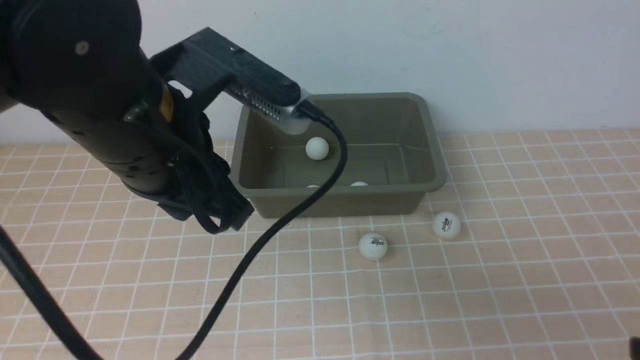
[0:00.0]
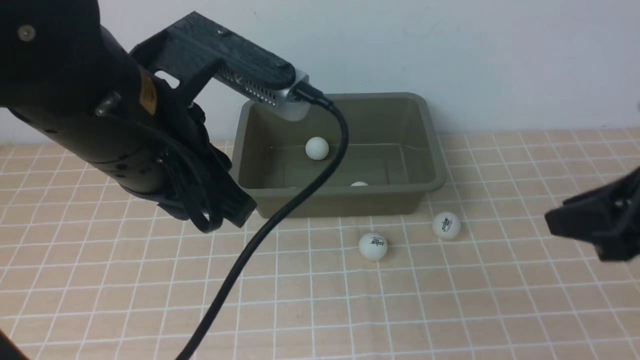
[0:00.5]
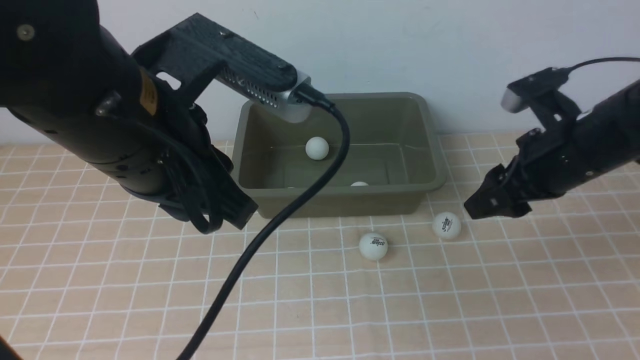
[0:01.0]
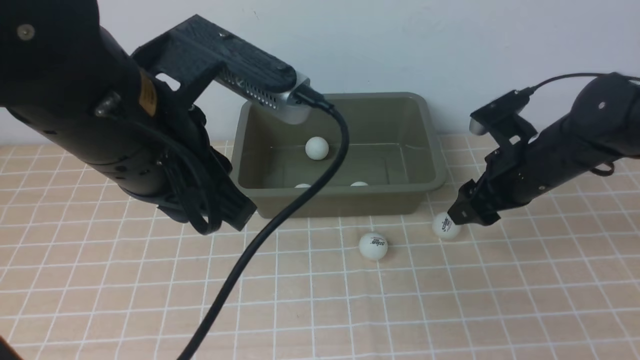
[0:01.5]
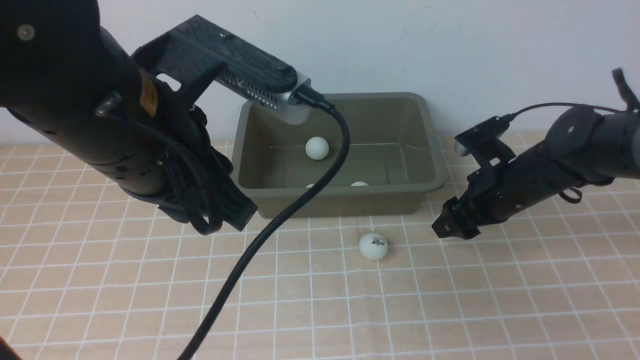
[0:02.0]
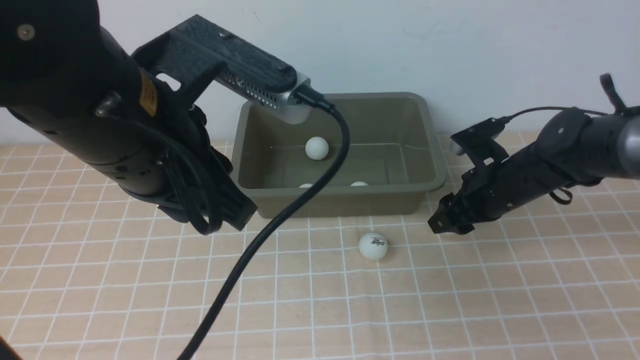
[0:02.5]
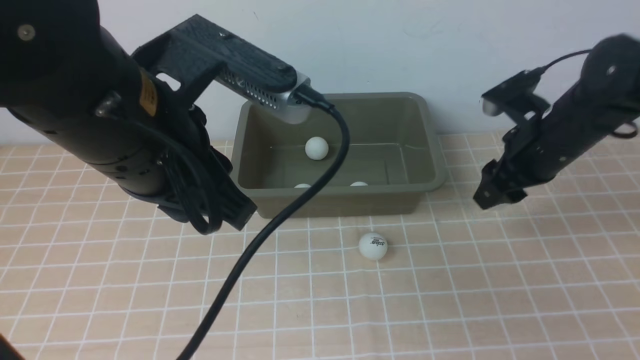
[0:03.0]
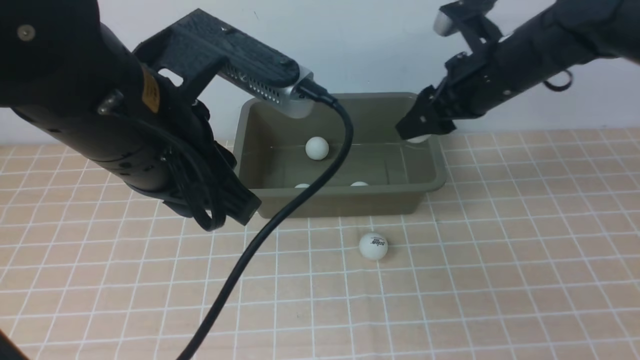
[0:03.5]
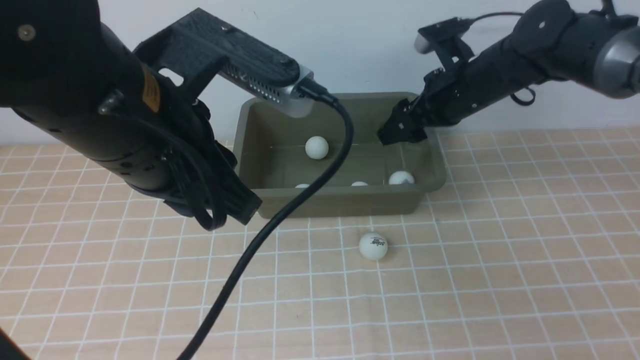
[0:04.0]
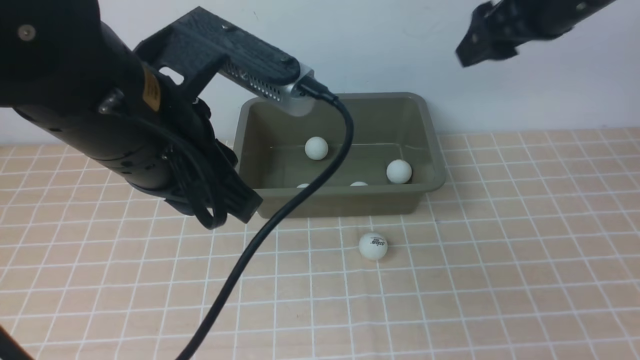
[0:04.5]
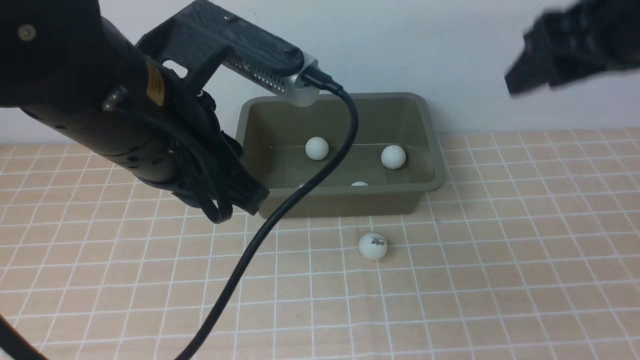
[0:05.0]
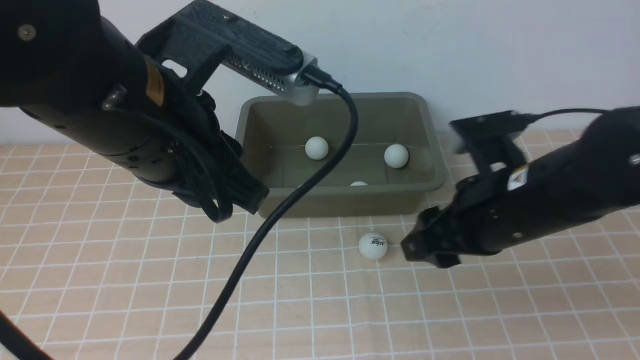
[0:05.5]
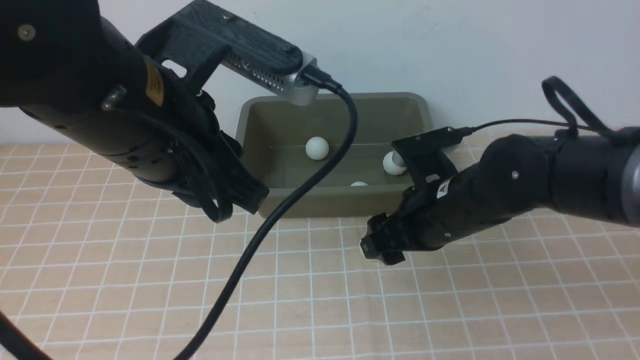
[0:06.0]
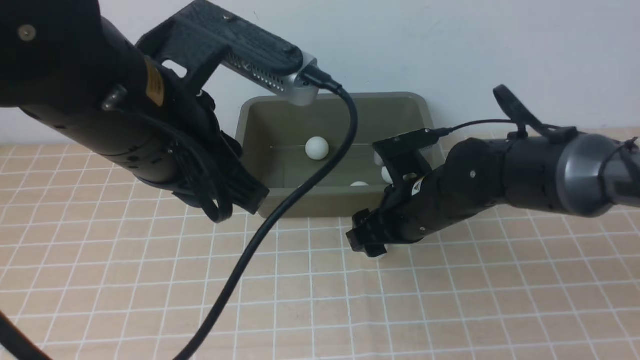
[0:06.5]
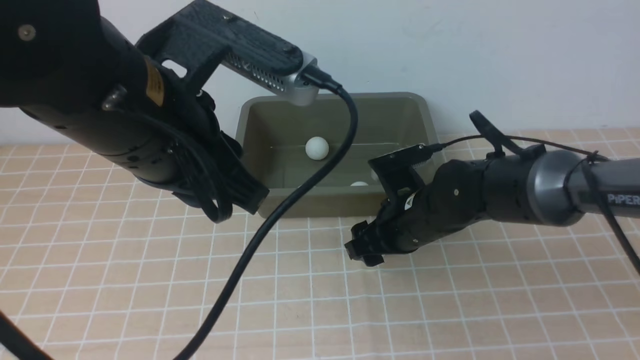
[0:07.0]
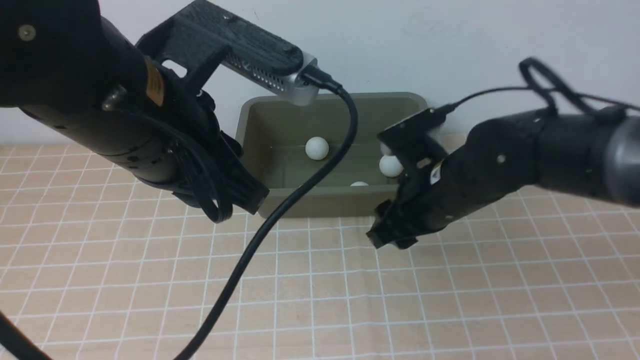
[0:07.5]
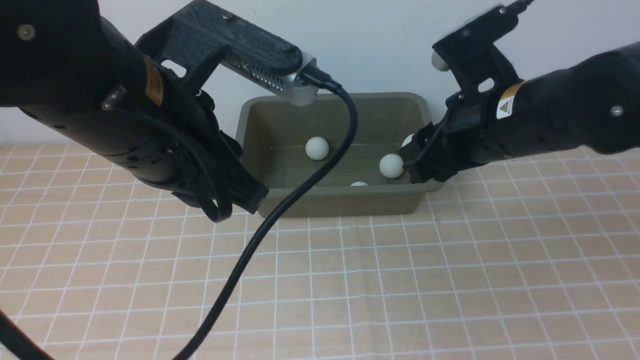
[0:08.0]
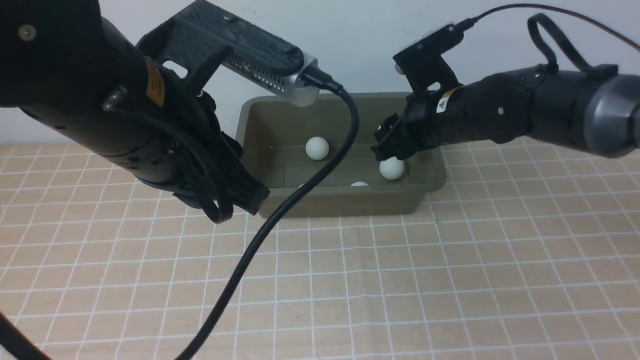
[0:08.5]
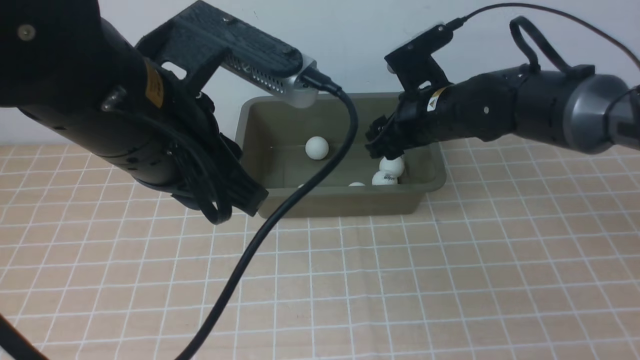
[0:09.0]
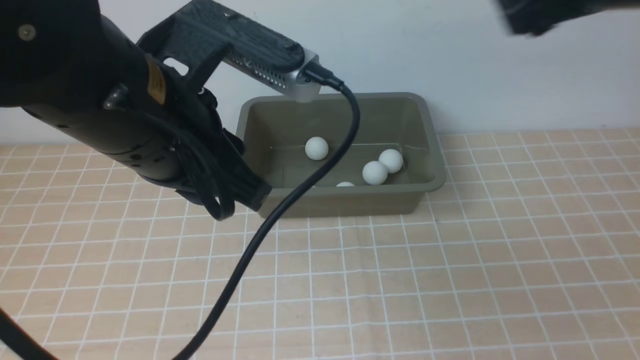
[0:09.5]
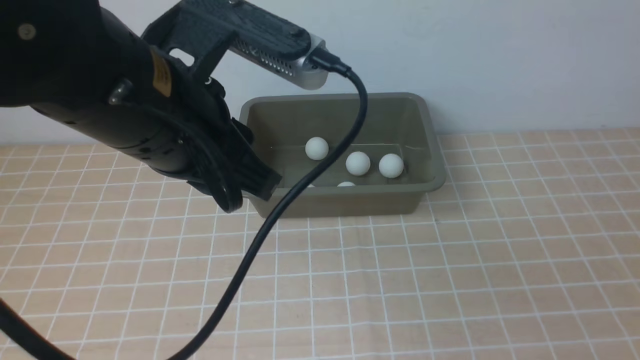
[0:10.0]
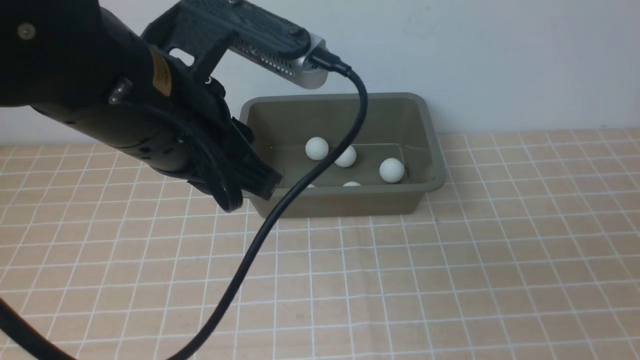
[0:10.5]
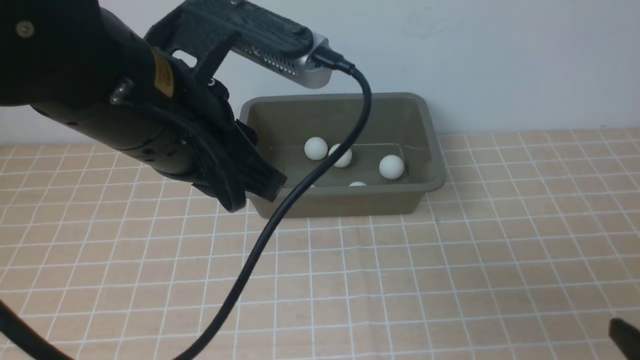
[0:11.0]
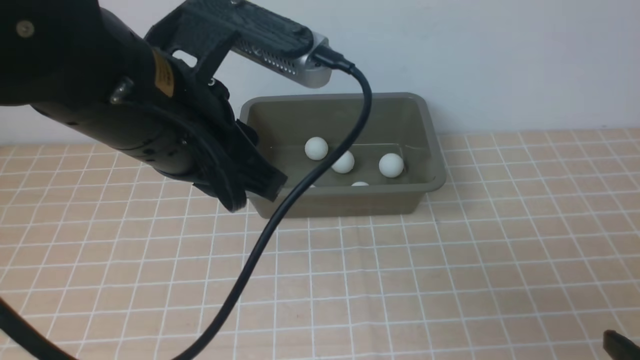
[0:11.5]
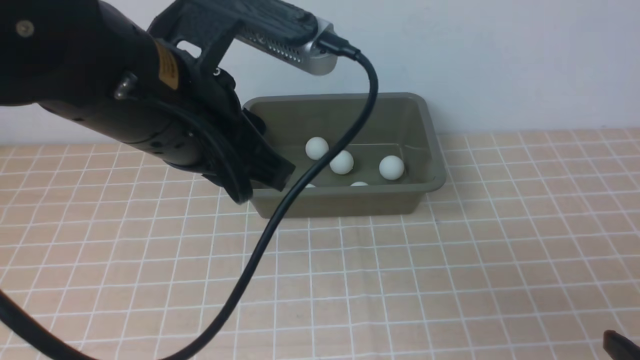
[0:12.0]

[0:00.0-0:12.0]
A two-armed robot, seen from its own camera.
Step, 0:00.0 to 0:03.0: use the right arm to clamp the table tennis ball closest to it.
Step, 0:03.5 to 0:04.0: use the right arm to put the table tennis ball into the box.
Step, 0:04.5 to 0:07.5: use the right arm to clamp the table tennis ball closest to it.
Step, 0:08.0 to 0:08.5: use the right arm to put the table tennis ball into the box.
0:00.0 to 0:02.0: The right gripper is displaced forward by about 35 cm, and opens up.
0:02.0 to 0:04.0: The right gripper is displaced upward and forward by roughly 15 cm.
0:04.0 to 0:06.0: The right gripper shifts approximately 15 cm backward, reaches about 10 cm upward, then returns, and closes, then reopens.
0:06.0 to 0:08.0: The right gripper is displaced upward by about 10 cm, and closes its fingers.
0:08.0 to 0:10.0: The right gripper is displaced upward, backward and to the right by roughly 30 cm, and opens up.
0:10.0 to 0:12.0: The right gripper is displaced downward by about 25 cm.

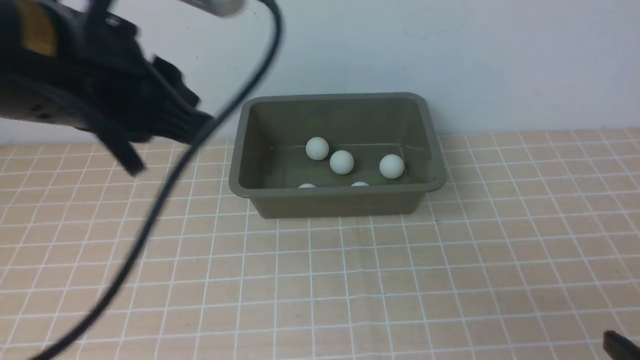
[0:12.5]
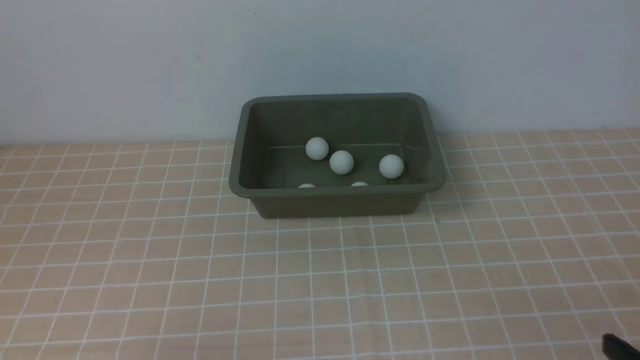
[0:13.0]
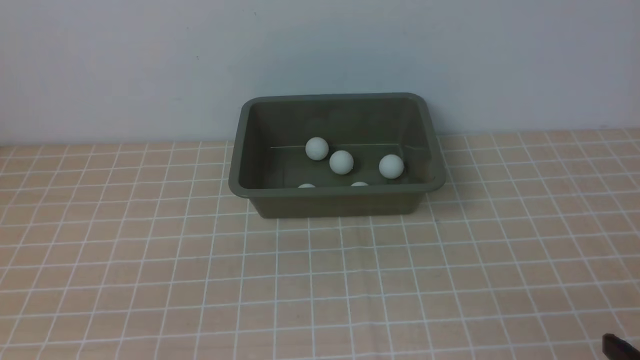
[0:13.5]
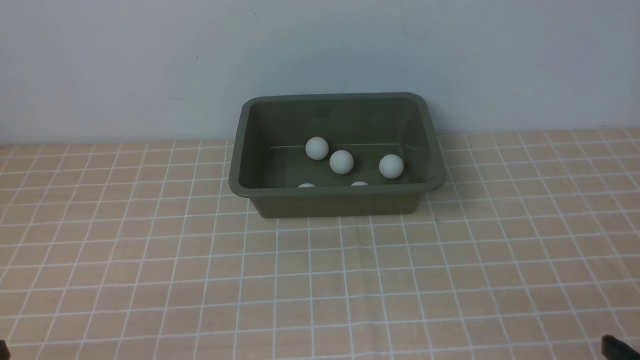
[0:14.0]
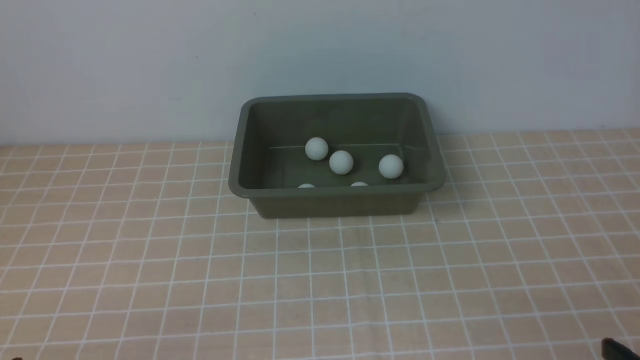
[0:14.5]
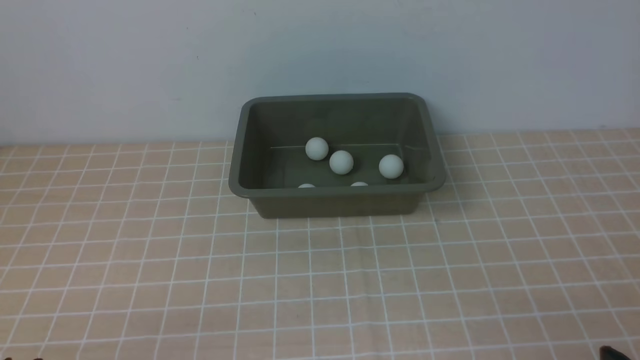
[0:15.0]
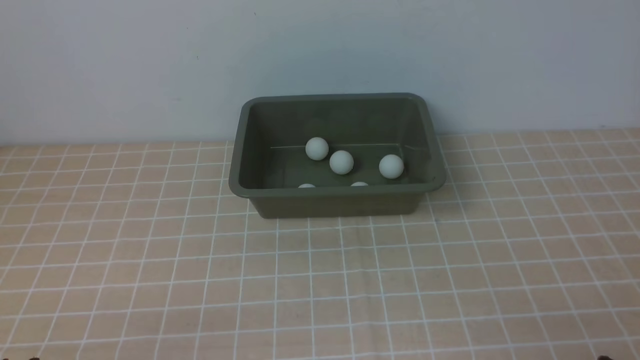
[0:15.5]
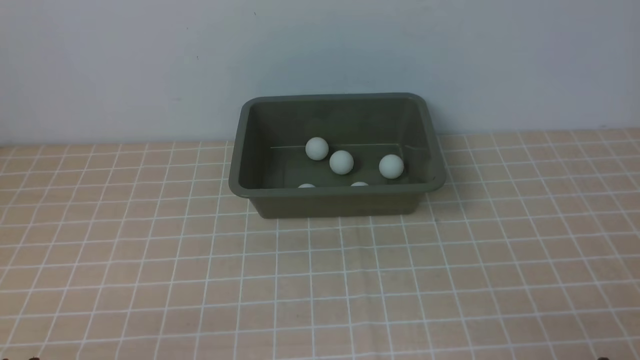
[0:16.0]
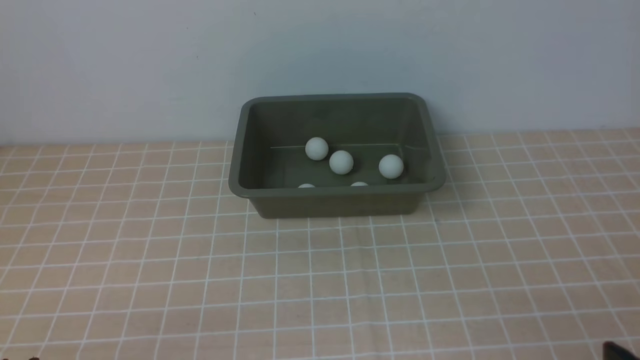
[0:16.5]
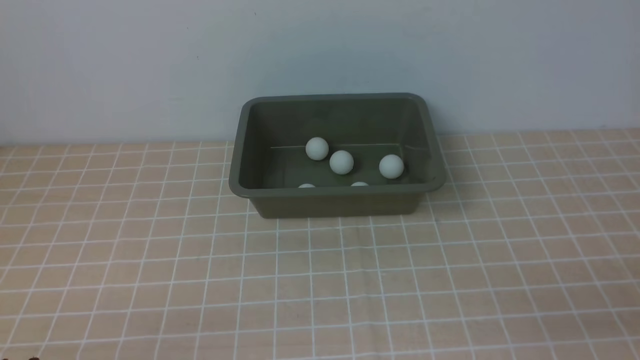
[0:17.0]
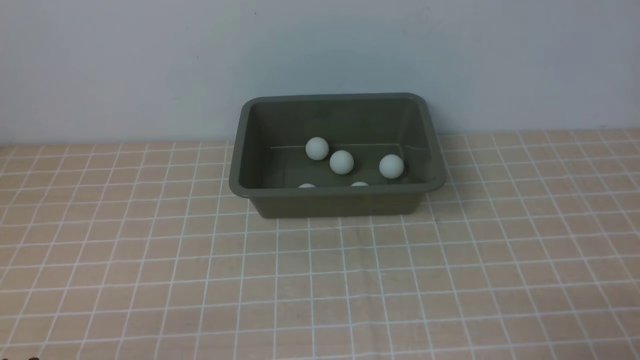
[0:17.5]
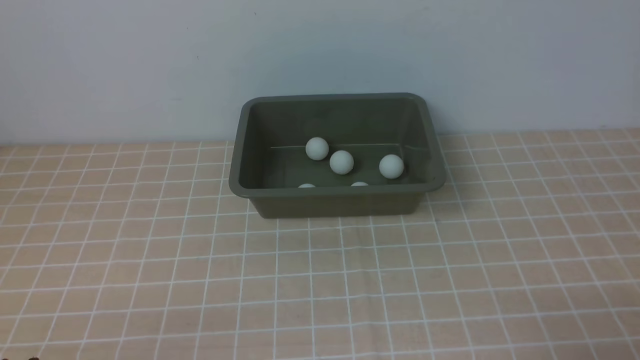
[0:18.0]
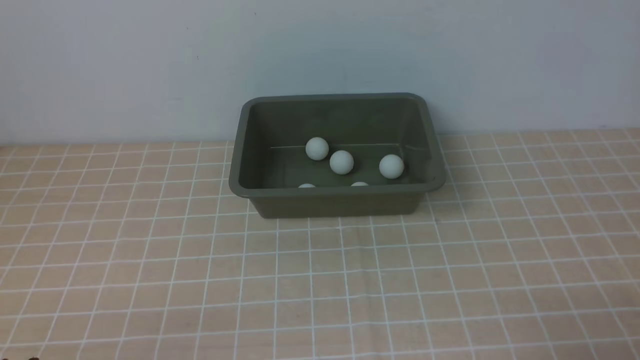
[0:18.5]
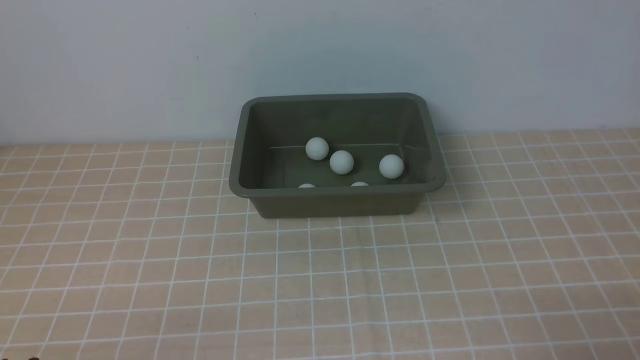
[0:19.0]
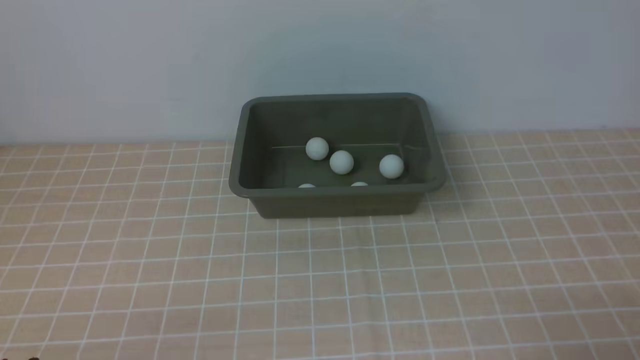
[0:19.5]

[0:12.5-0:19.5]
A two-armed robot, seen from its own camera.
0:12.5 to 0:14.5: The left gripper shifts roughly 30 cm downward and backward.
0:14.5 to 0:16.0: The two grippers keep their place.
0:17.5 to 0:19.5: Neither gripper changes place.
